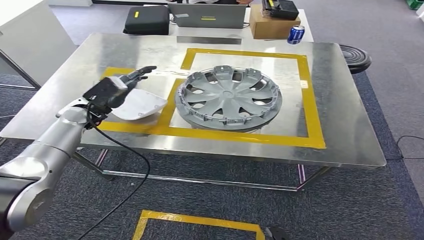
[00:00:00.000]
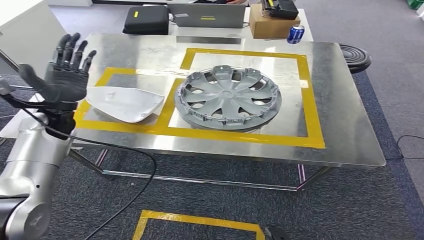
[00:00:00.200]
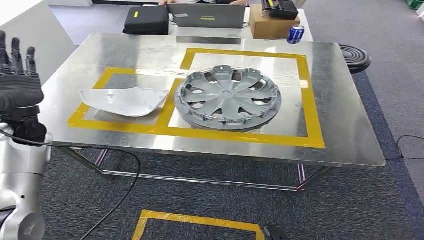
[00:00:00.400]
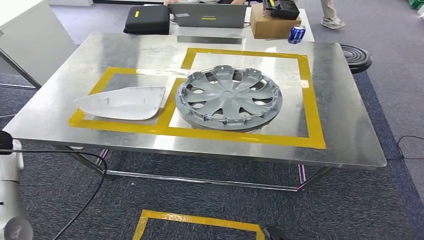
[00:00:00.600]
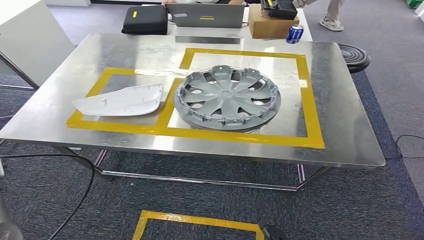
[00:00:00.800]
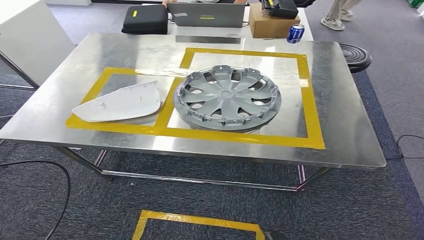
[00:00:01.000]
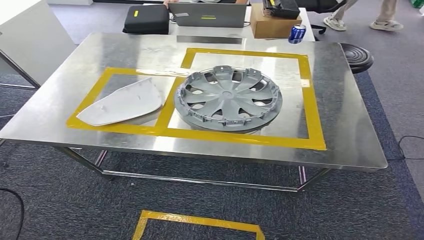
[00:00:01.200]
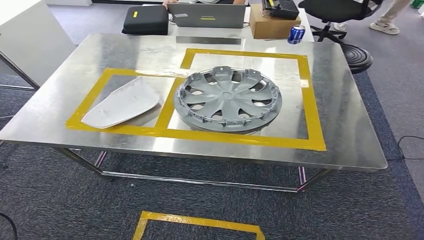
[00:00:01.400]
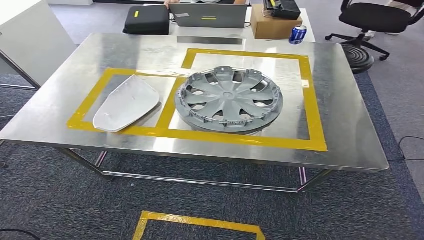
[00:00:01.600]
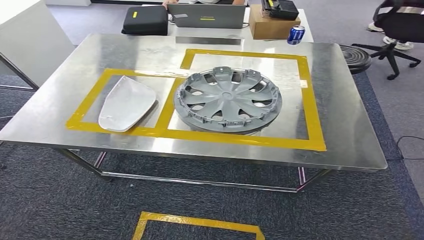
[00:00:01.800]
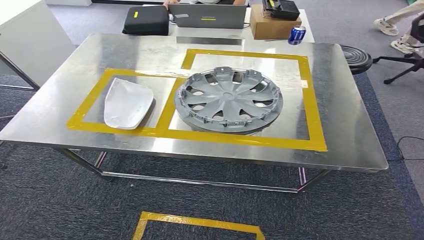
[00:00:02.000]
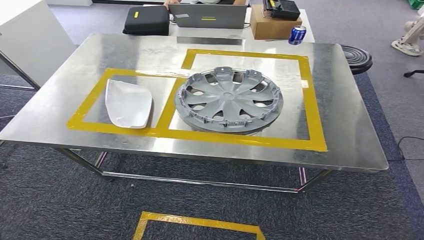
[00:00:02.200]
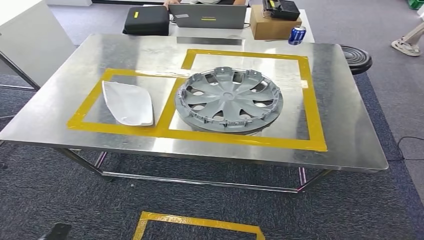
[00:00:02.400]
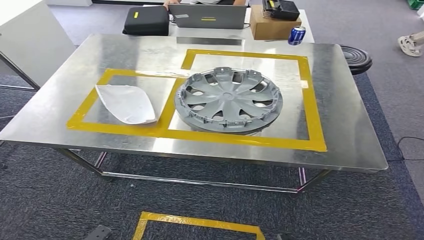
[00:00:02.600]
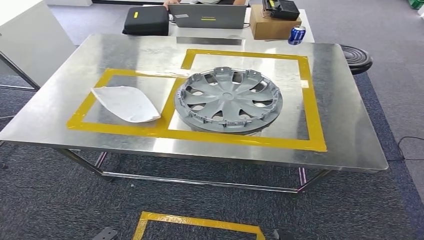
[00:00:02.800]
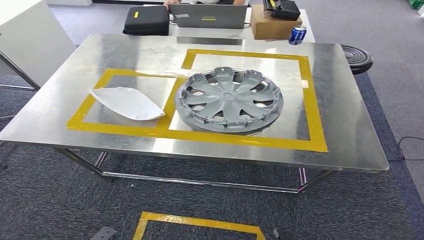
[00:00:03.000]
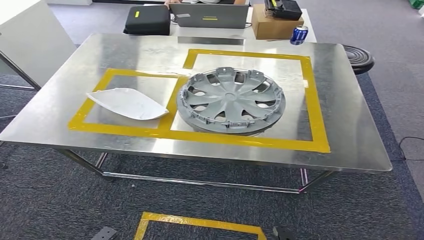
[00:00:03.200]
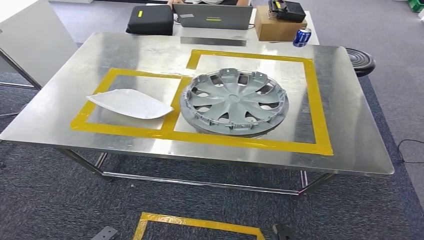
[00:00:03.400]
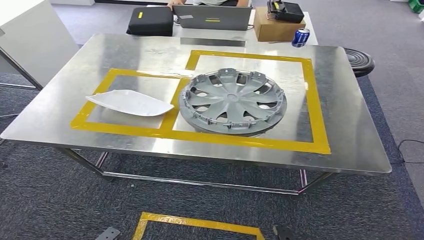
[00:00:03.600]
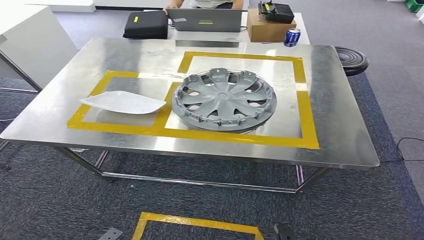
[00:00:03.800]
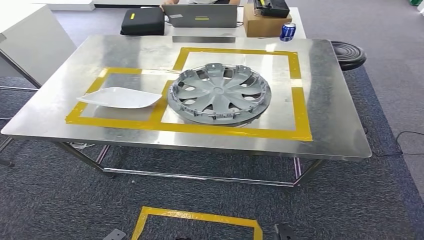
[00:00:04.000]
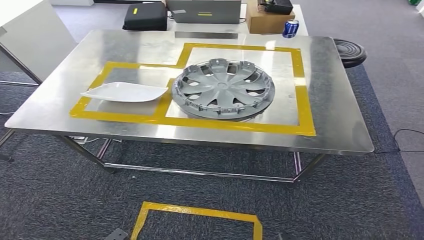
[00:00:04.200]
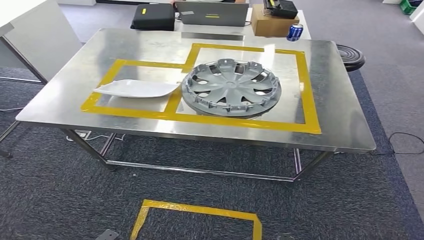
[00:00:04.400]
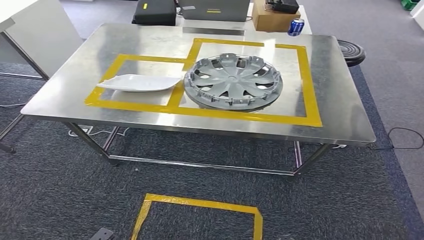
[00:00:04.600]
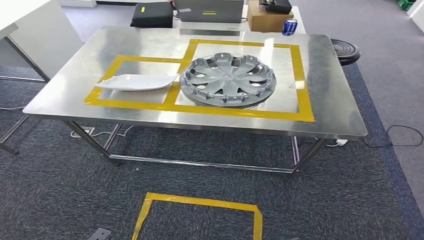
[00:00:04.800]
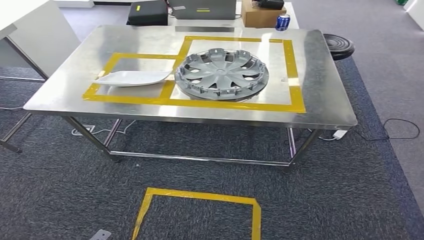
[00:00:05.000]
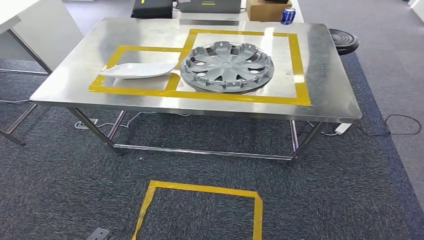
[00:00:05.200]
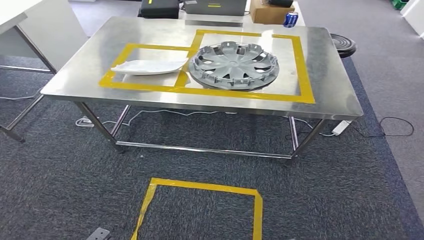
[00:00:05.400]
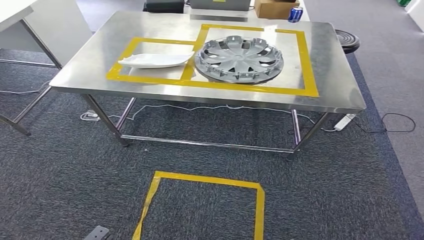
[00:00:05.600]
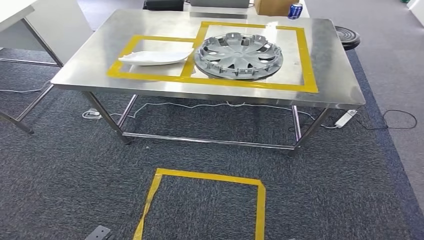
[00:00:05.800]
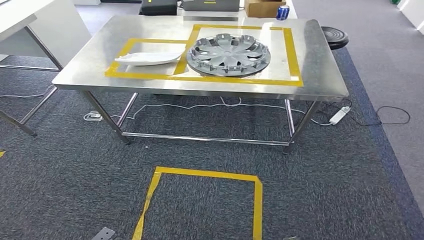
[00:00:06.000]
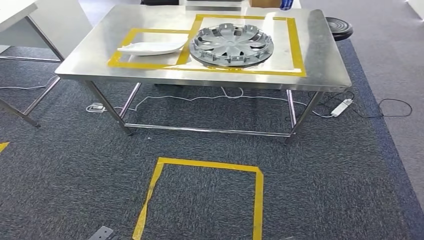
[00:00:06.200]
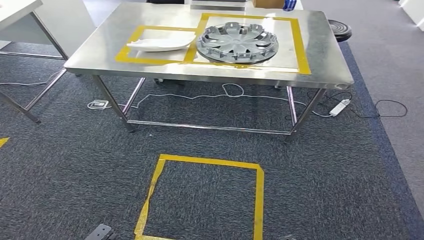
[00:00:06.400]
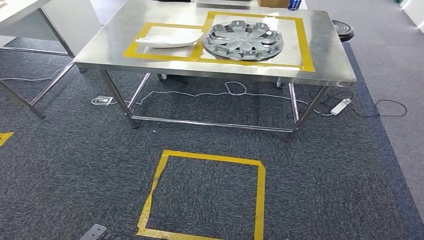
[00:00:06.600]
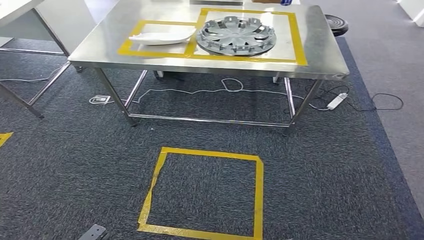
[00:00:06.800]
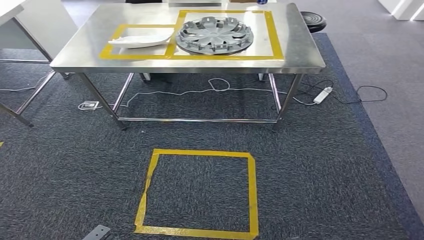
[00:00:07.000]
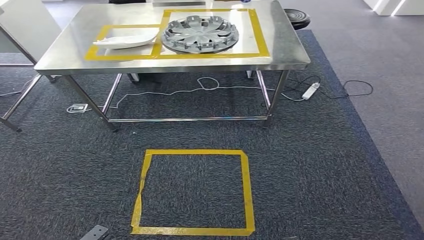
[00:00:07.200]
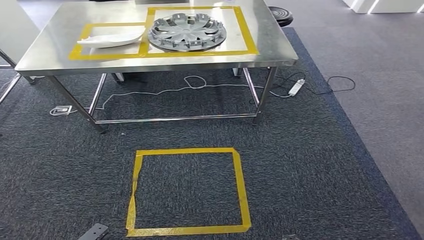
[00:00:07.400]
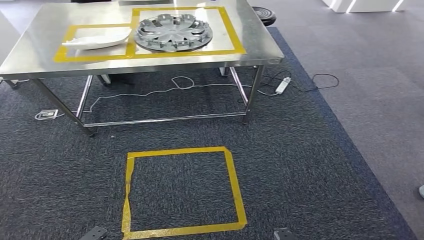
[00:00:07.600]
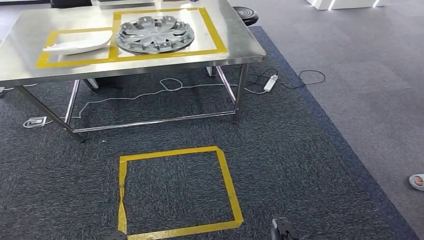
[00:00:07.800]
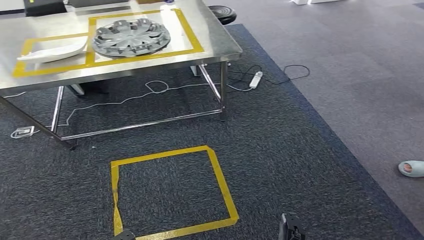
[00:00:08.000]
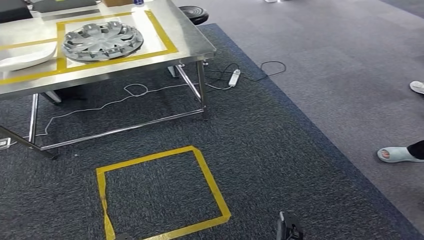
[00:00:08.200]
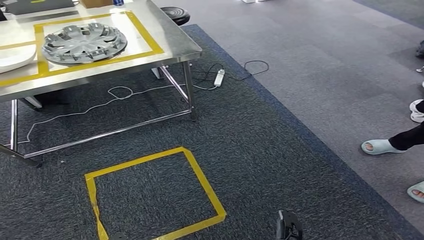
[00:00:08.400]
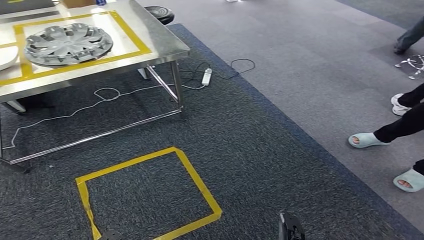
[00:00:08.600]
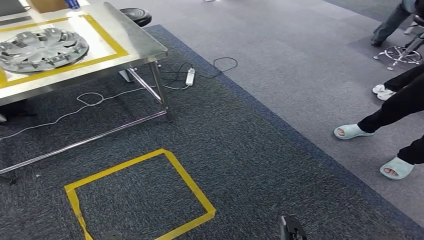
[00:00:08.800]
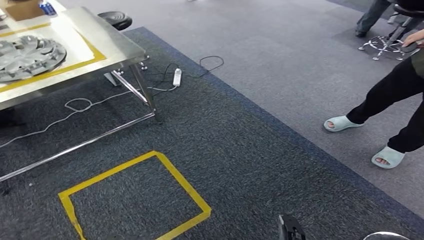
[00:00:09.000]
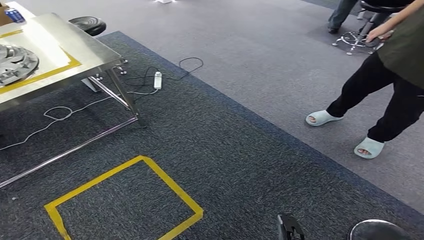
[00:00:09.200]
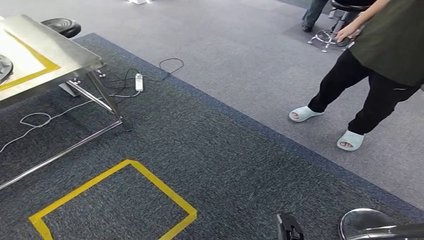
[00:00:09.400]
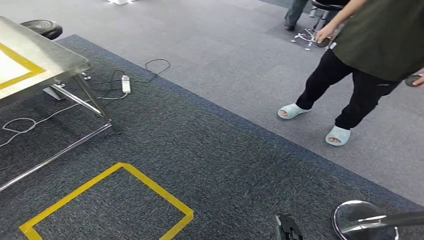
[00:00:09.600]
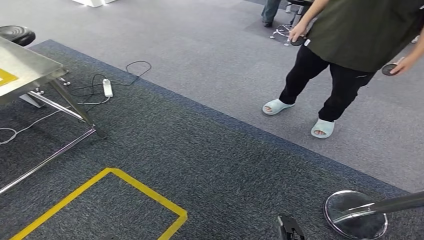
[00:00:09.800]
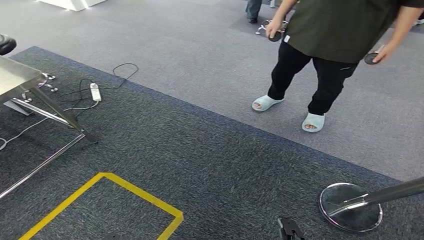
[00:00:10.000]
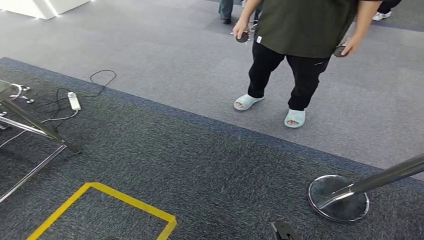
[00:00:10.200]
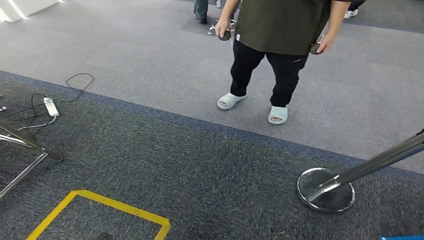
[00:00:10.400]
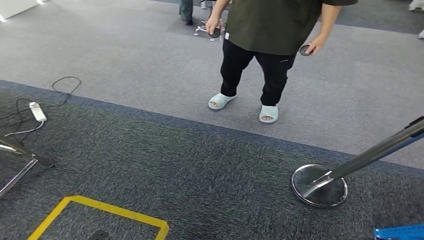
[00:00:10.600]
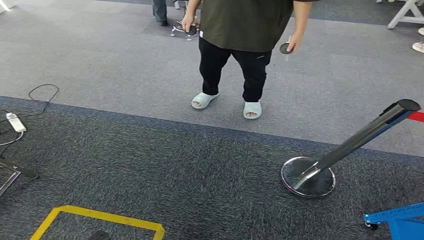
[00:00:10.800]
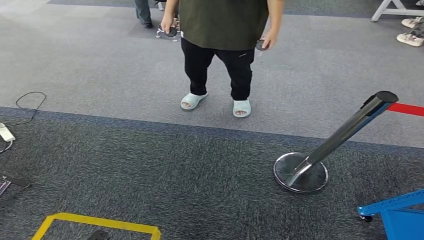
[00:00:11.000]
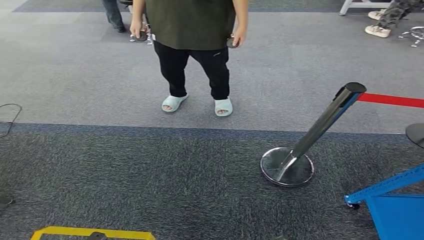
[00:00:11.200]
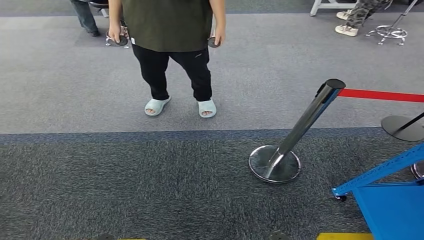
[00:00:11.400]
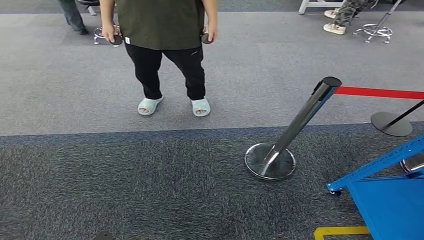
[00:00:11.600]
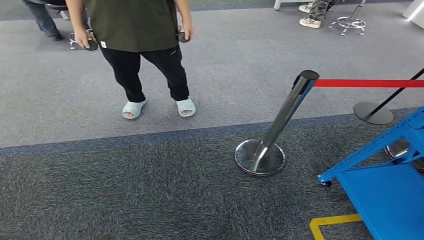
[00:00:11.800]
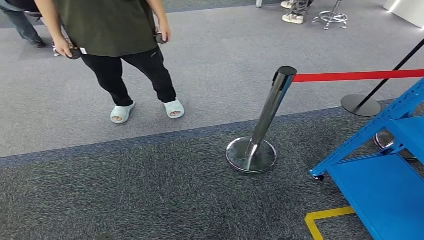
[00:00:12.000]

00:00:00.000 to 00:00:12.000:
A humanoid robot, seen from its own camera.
Step, 00:00:00.000 to 00:00:02.800: Insert the small component into the corresponding slot on the workbench.
00:00:00.000 to 00:00:01.600: The left hand moves backward and to the left, approximately 50 cm. Meanwhile the right hand moves backward, about 5 cm.
00:00:01.600 to 00:00:03.000: The left hand travels to the right and downward by some 30 cm, while the right hand moves about 5 cm.

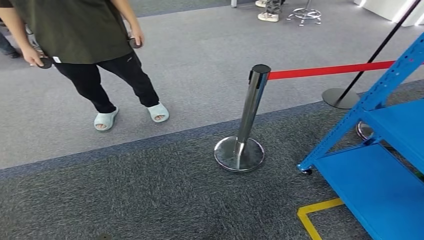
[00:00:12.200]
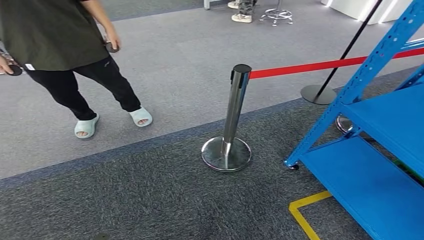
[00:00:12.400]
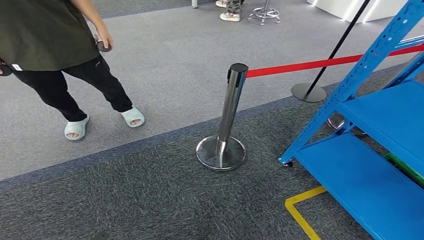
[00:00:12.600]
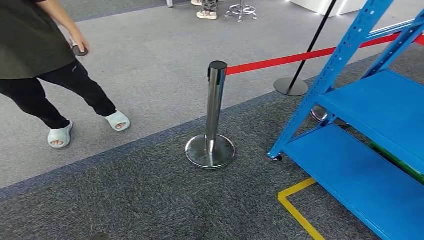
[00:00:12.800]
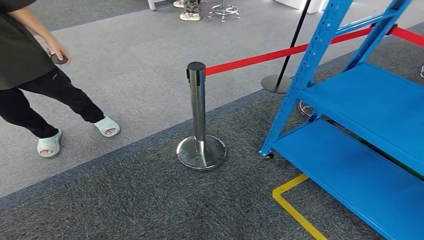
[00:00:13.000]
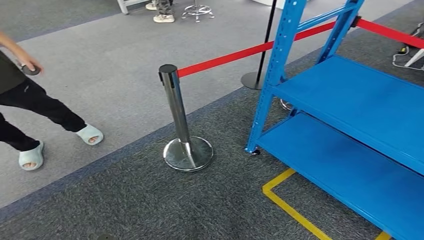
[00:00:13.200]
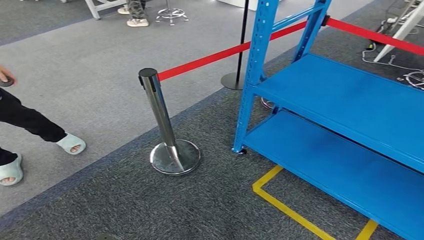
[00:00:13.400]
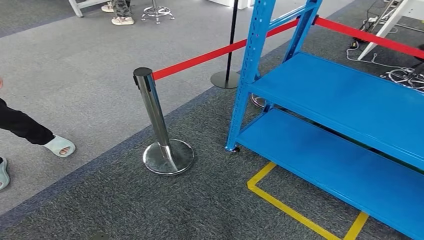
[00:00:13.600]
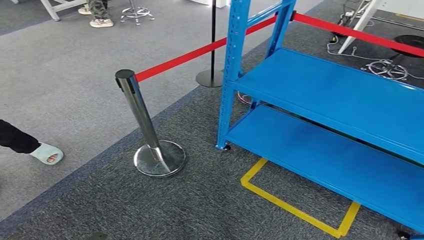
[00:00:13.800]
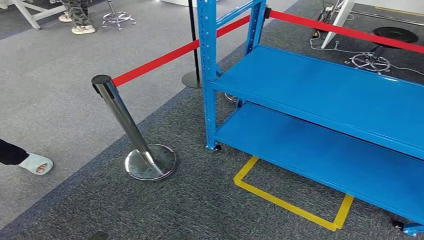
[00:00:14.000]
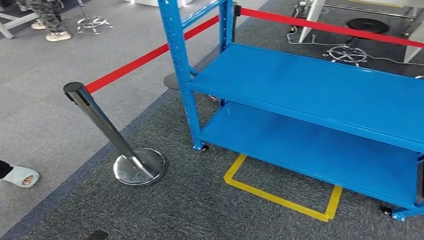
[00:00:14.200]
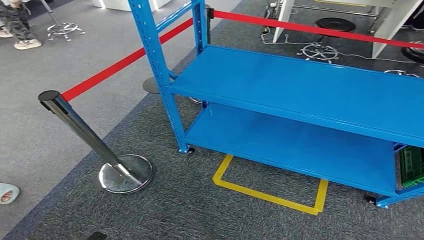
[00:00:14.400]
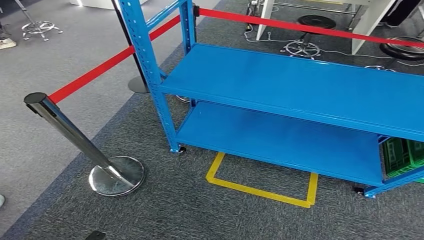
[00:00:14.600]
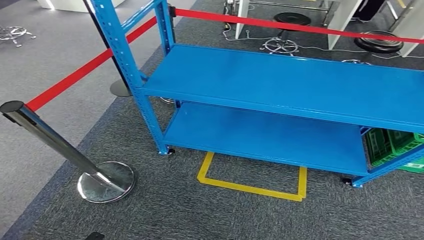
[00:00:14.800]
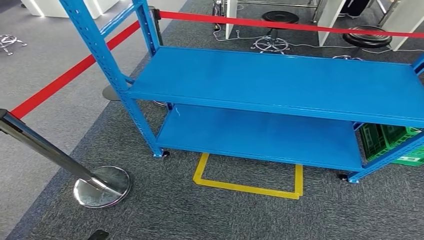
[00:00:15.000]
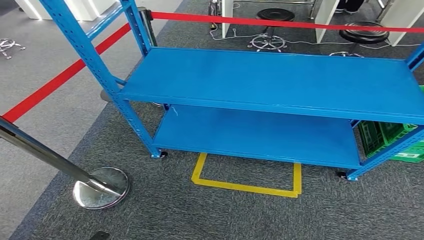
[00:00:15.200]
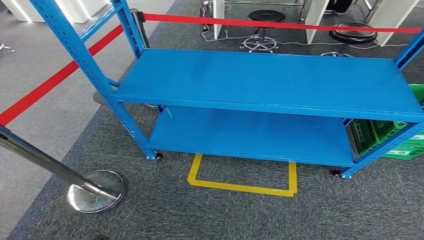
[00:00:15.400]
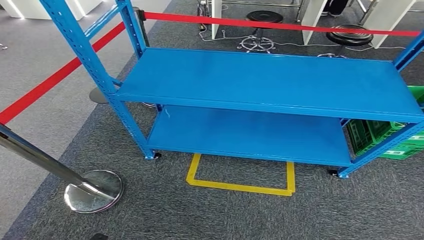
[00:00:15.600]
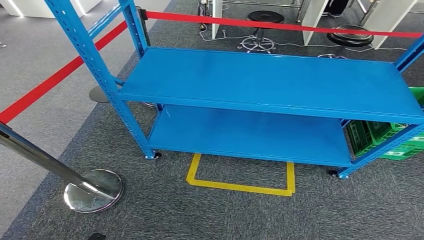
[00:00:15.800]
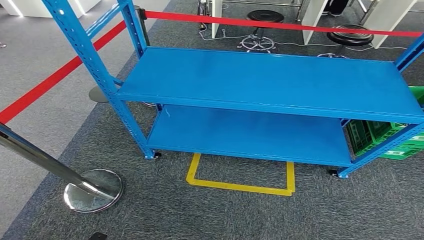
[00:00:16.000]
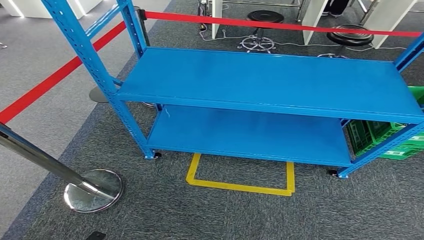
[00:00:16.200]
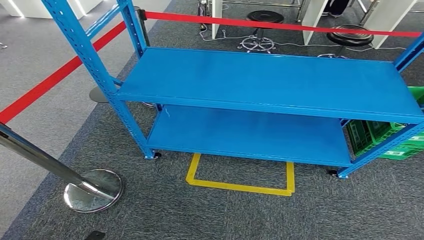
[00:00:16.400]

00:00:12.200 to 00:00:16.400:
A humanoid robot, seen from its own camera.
Step, 00:00:12.200 to 00:00:16.400: Move to the initial position of the workbench.
